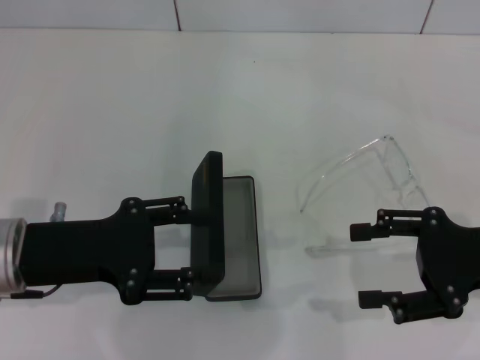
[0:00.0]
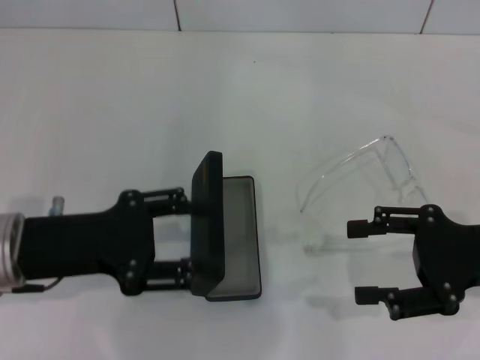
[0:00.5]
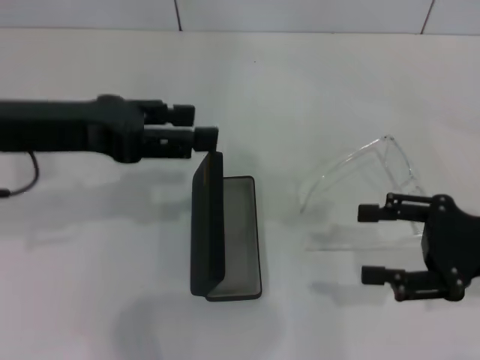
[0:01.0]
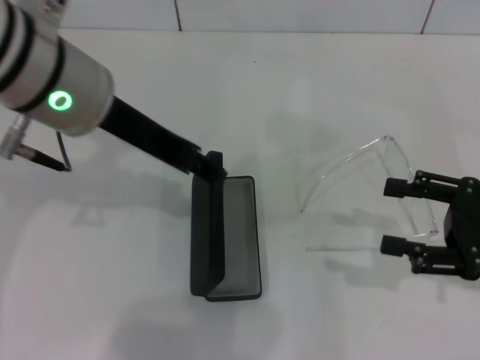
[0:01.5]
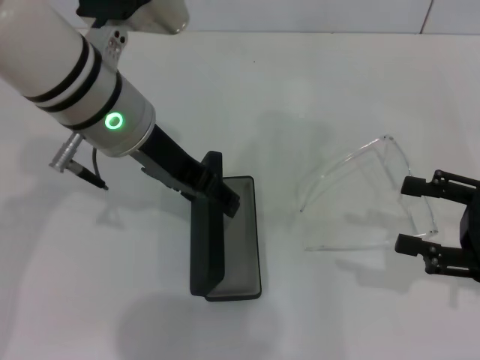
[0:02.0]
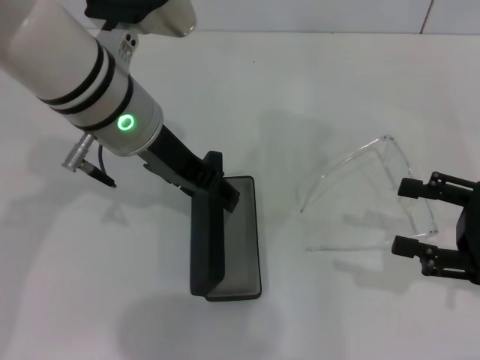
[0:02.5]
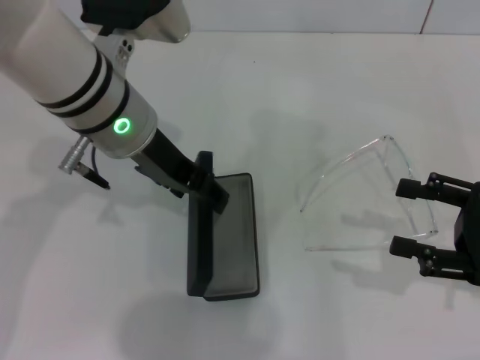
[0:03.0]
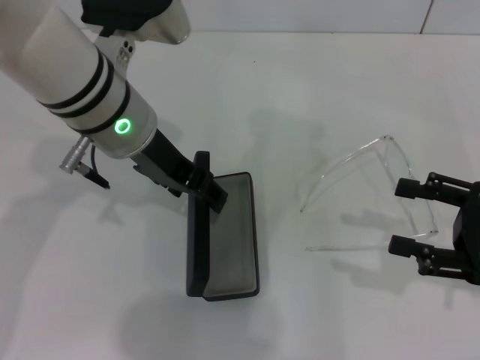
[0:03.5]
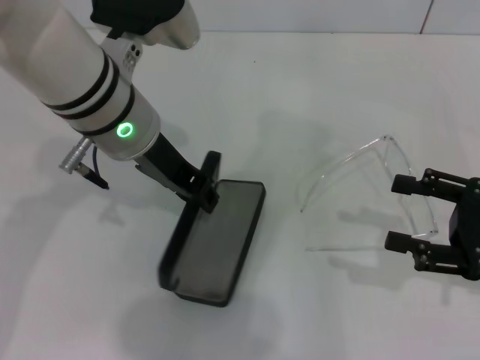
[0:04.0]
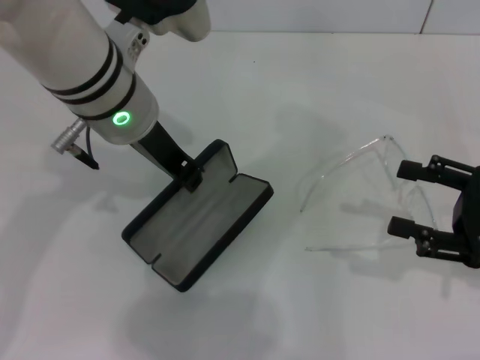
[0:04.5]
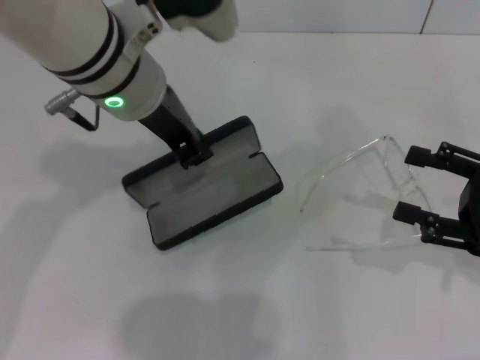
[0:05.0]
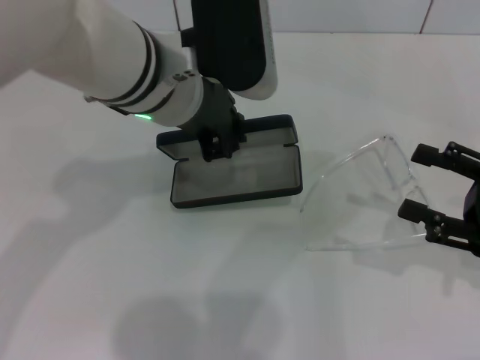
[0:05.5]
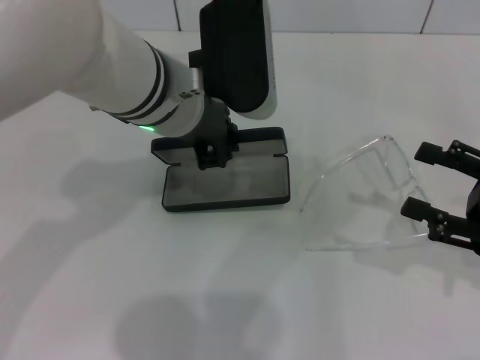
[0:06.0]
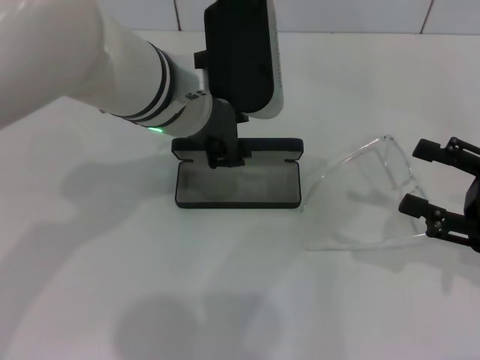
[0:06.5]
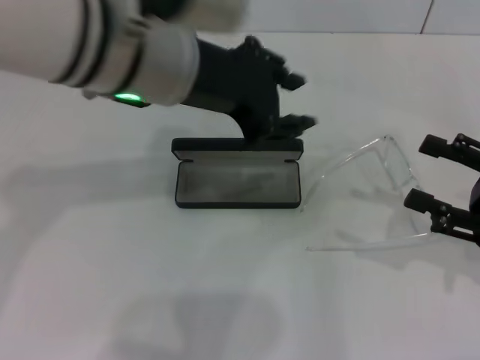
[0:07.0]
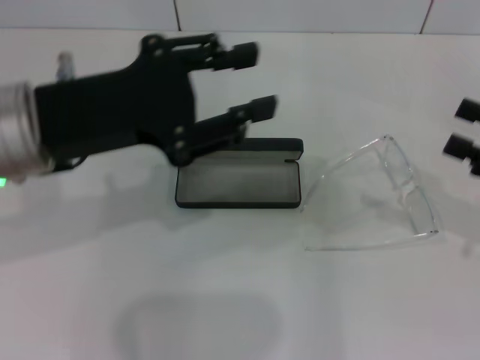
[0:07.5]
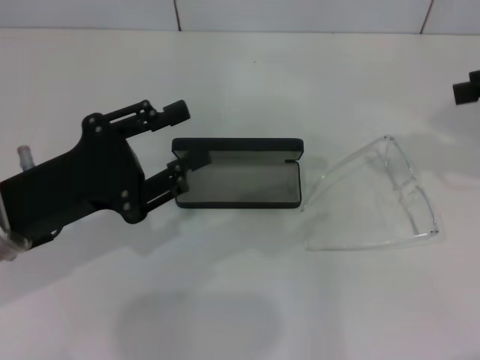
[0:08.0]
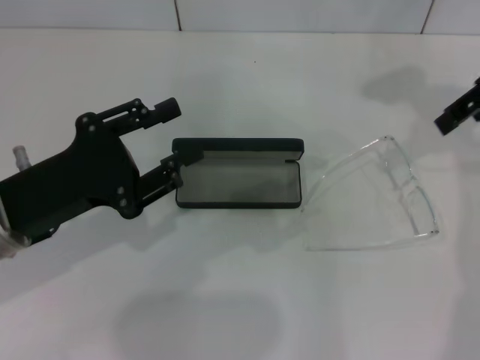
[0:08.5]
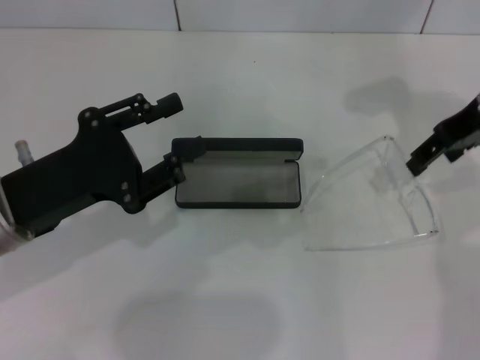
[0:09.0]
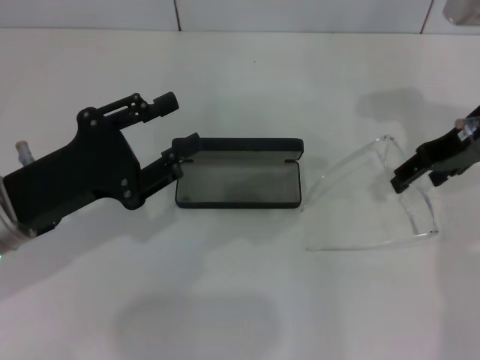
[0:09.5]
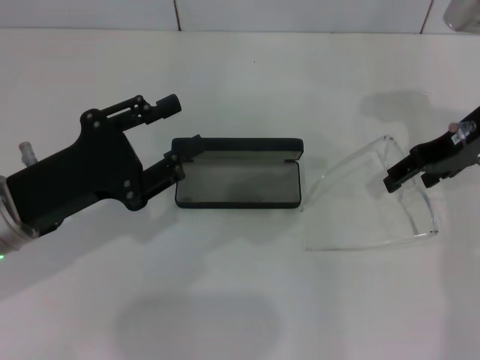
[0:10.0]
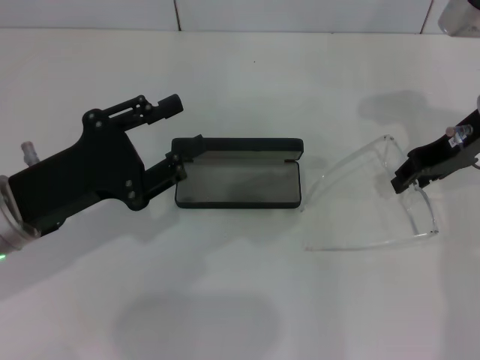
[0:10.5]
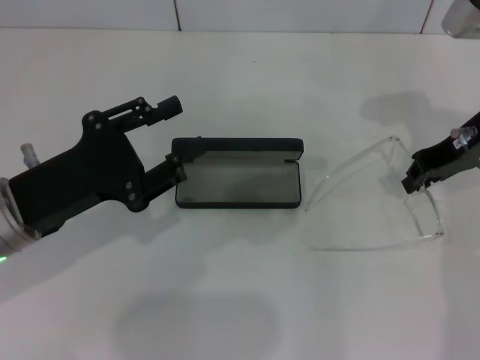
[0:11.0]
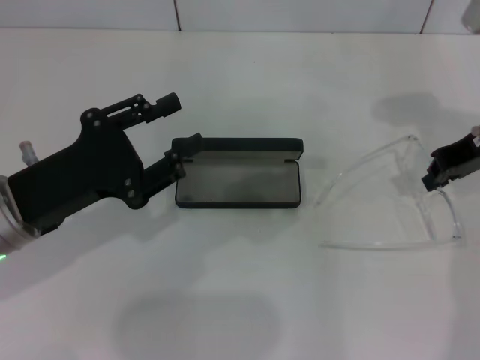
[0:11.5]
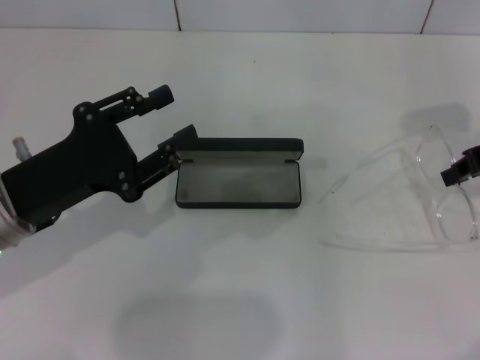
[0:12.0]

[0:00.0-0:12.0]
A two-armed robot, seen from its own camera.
Step, 0:00.0 to 0:04.0: Grab the glasses case with your left hand.
Step, 0:04.5 to 0:06.0: Place the glasses case in the center of the table with your left hand.
Step, 0:06.5 to 0:11.0: Grab the eyeglass frame with your right hand.
0:00.0 to 0:02.0: The left gripper is displaced to the right, forward and upward by roughly 20 cm.
0:02.0 to 0:04.0: The grippers stay close to where they were, moving slightly.
0:04.0 to 0:06.0: The left gripper closes up.
0:06.0 to 0:08.0: The left gripper moves to the left, backward and downward, some 20 cm, and opens. Meanwhile the right gripper shifts about 20 cm upward and forward.
0:08.0 to 0:10.0: The right gripper moves to the left, downward and forward, about 15 cm.
0:10.0 to 0:12.0: The right gripper moves to the right, about 5 cm, and closes its fingers.

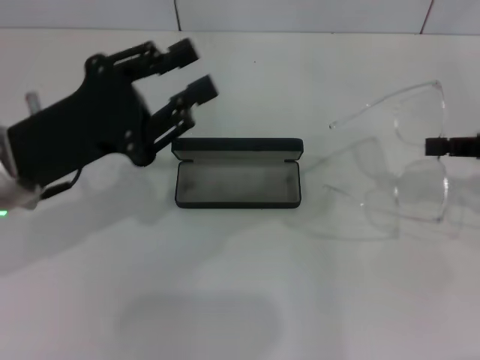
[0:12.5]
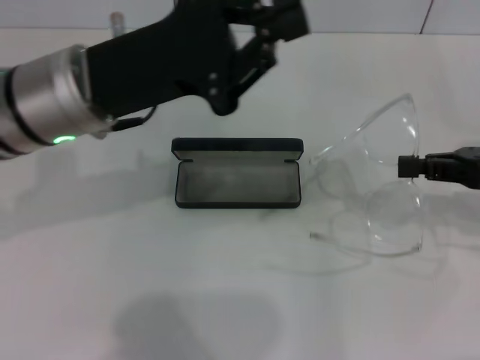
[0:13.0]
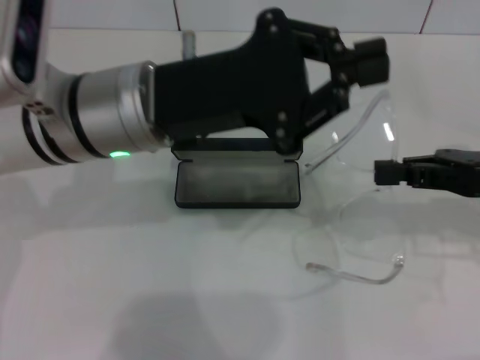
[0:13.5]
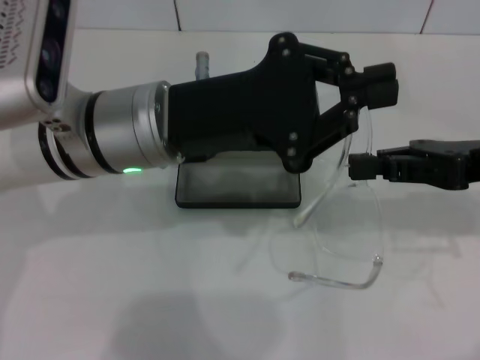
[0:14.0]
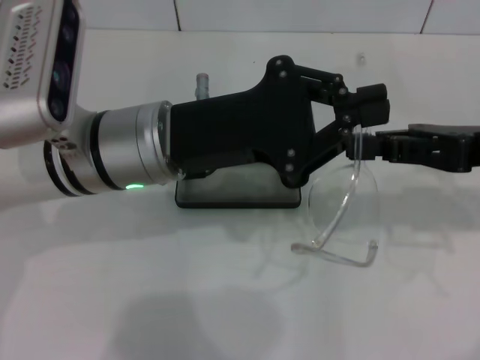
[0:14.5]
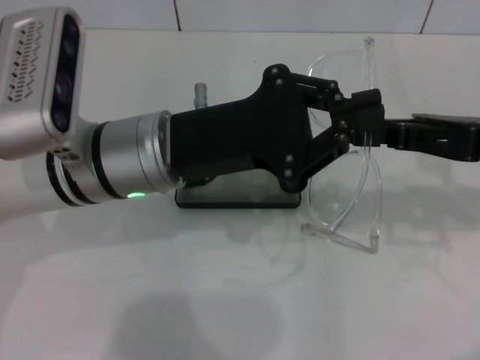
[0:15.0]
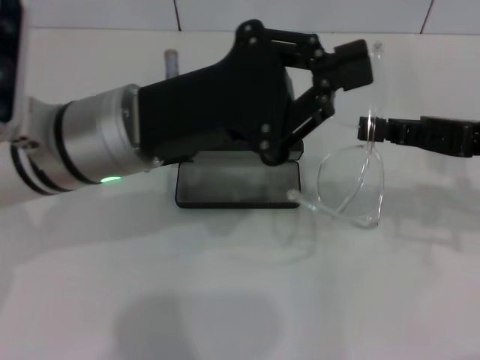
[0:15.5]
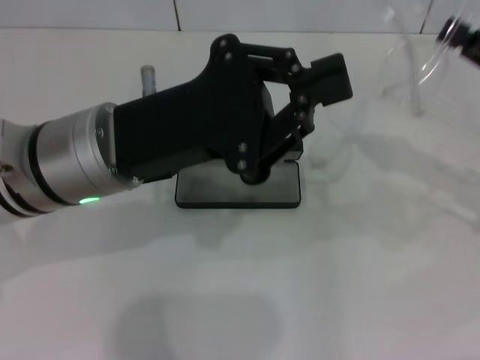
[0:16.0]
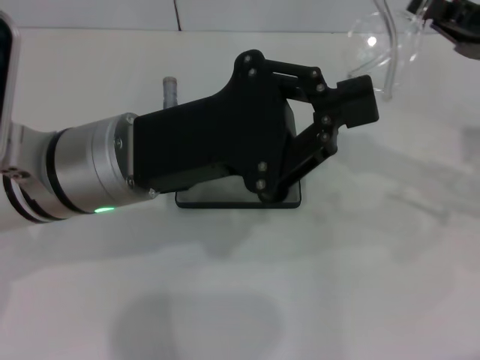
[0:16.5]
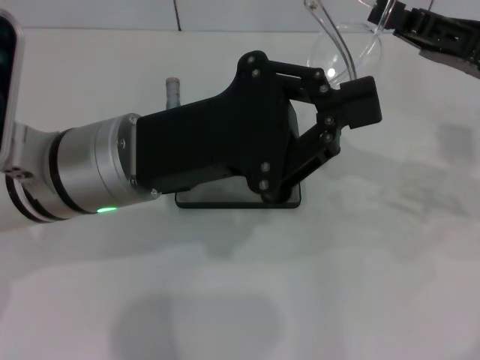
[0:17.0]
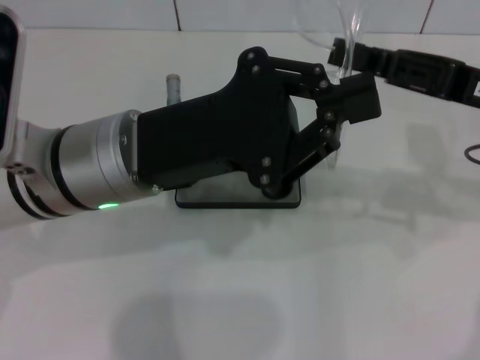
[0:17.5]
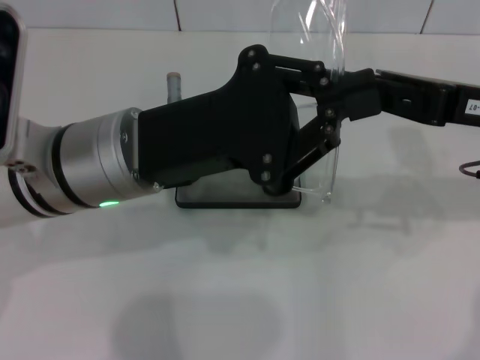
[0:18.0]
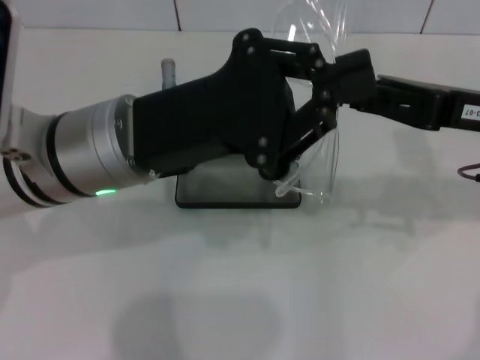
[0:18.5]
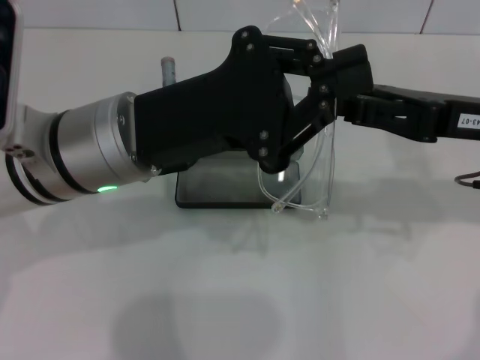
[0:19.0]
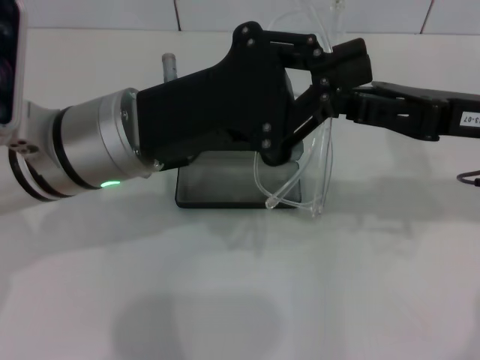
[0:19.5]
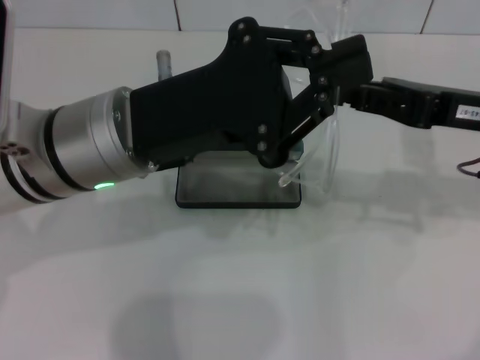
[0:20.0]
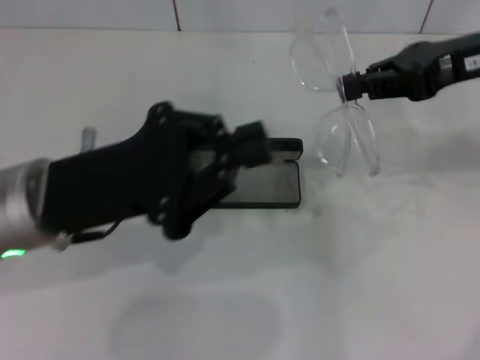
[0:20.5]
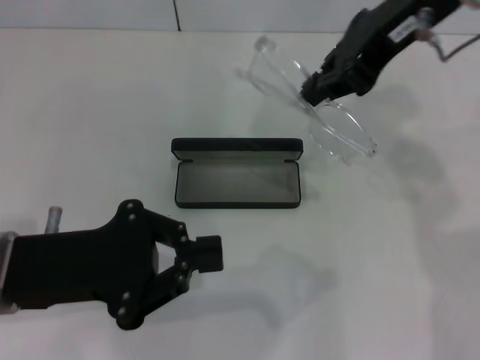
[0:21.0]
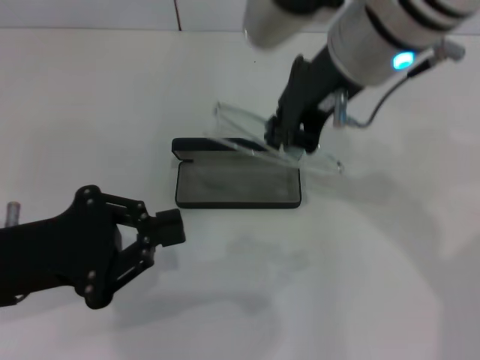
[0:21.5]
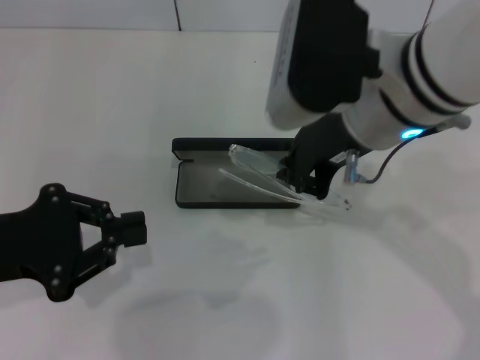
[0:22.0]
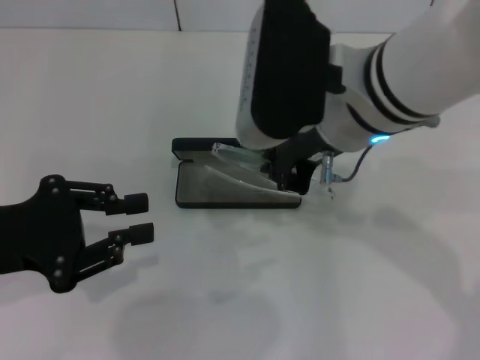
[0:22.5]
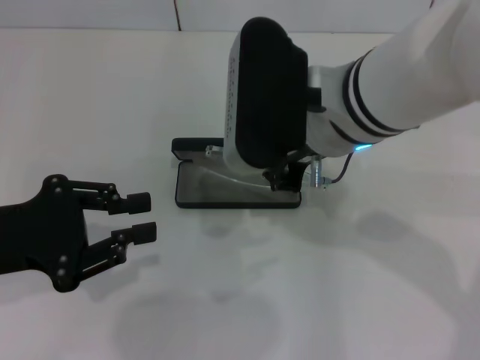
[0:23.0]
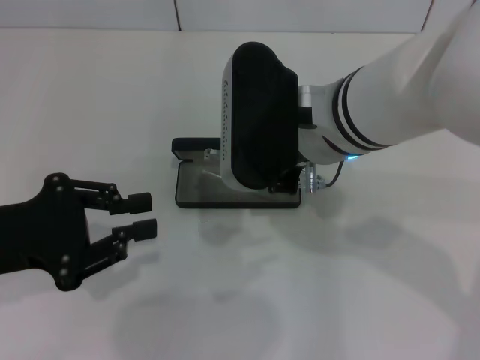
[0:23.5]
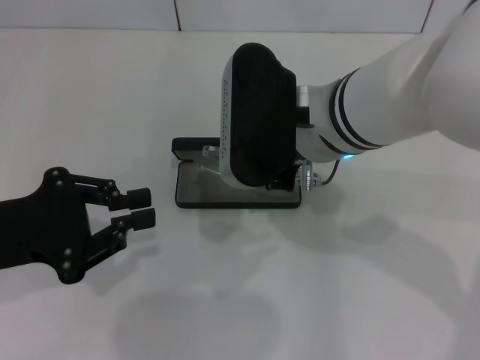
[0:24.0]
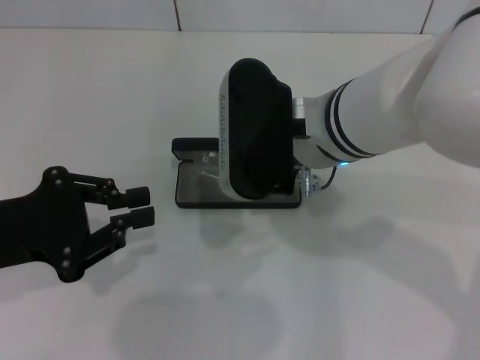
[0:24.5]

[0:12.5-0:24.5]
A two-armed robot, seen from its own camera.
Step, 0:12.5 to 0:19.0: Lift the glasses with your right hand.
0:12.5 to 0:14.5: The right gripper goes about 10 cm to the left. Meanwhile the left gripper is displaced to the right by approximately 10 cm, and closes.
0:16.5 to 0:18.5: The right gripper goes about 5 cm to the left.
0:18.5 to 0:20.5: The right gripper moves upward, approximately 10 cm; the left gripper is displaced to the left by roughly 5 cm.
0:20.5 to 0:22.5: The right gripper travels to the left by some 15 cm; the left gripper shifts some 10 cm to the left.

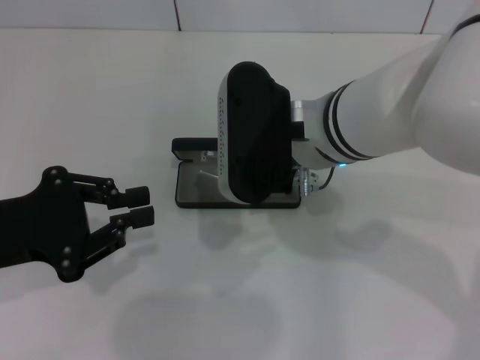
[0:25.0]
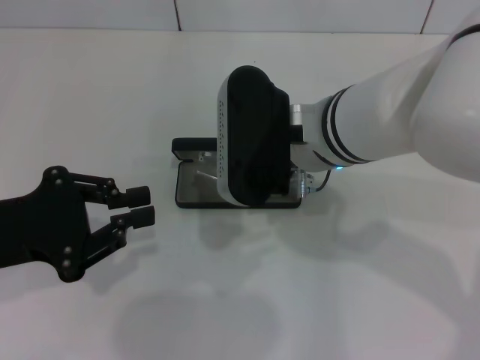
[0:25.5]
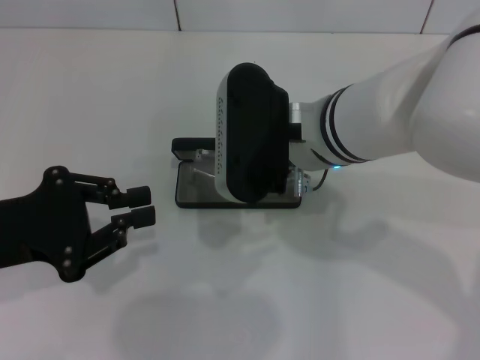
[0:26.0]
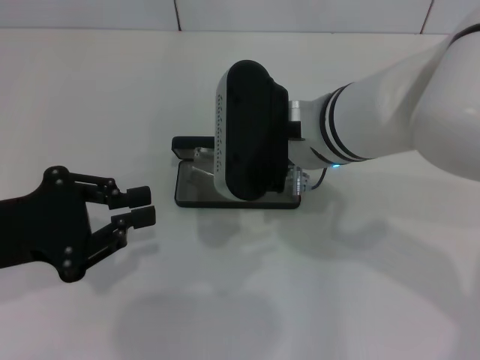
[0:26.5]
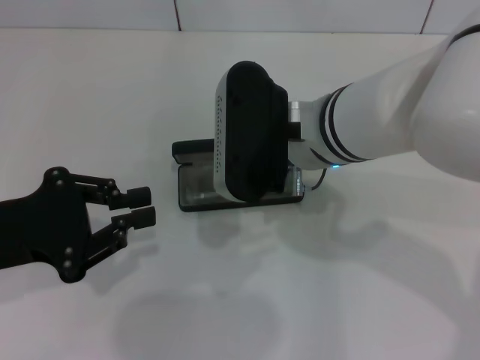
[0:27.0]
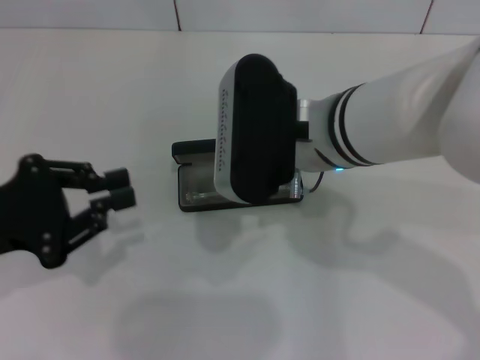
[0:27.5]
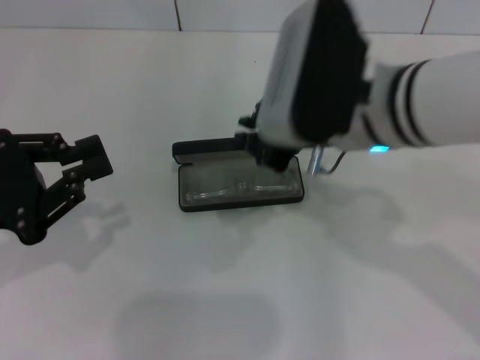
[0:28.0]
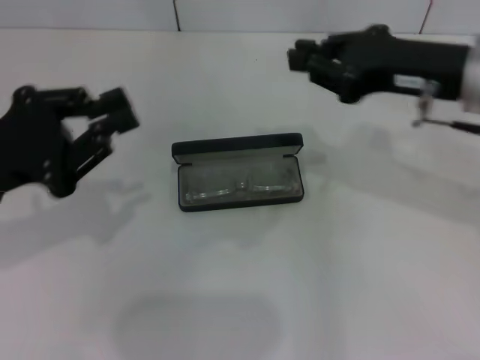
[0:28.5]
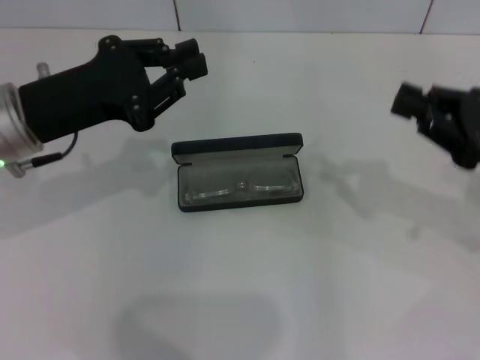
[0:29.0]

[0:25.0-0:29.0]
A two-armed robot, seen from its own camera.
Step, 0:25.0 to 0:27.0: Put the glasses into the case with your right hand.
0:25.0 to 0:27.0: The two grippers keep their place.
0:27.0 to 0:29.0: The right gripper moves to the right, roughly 25 cm. Meanwhile the left gripper travels forward by about 10 cm.
